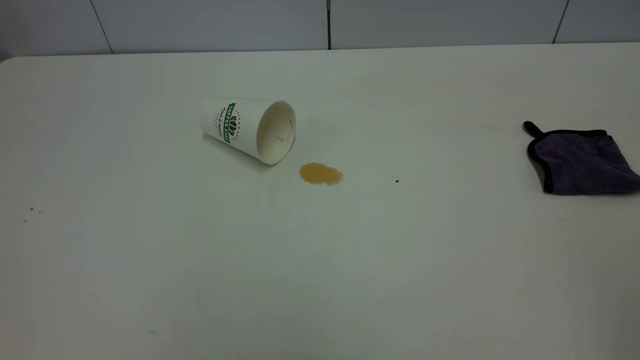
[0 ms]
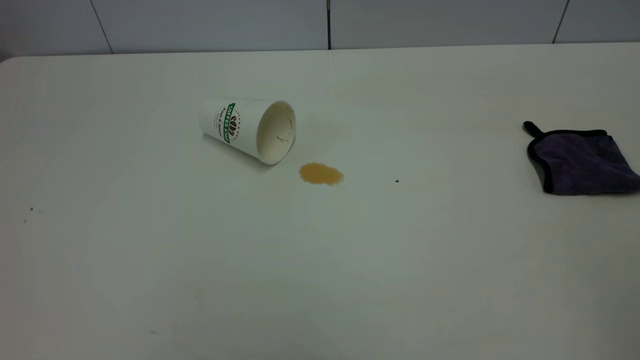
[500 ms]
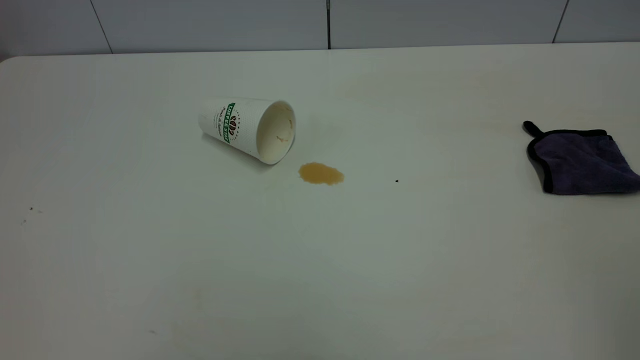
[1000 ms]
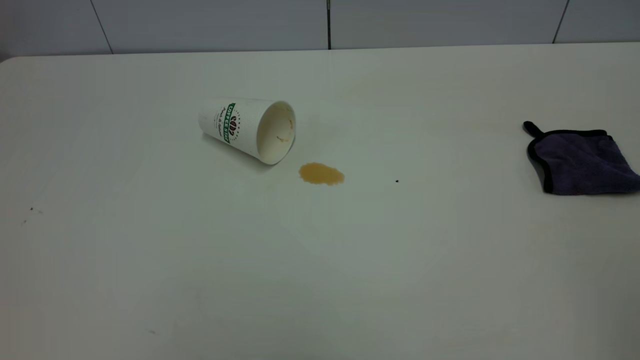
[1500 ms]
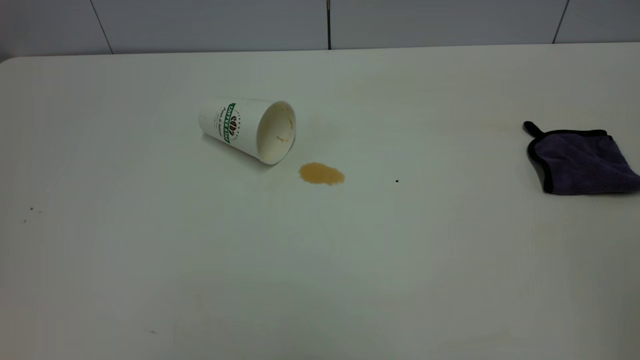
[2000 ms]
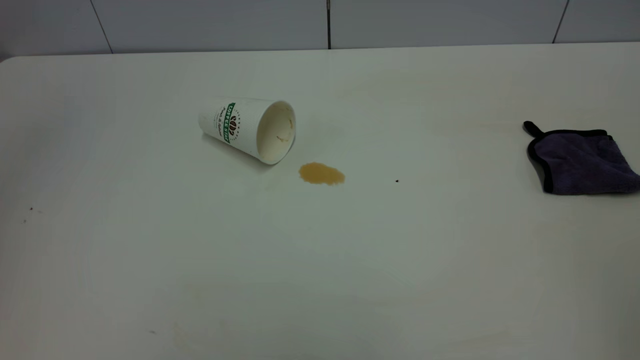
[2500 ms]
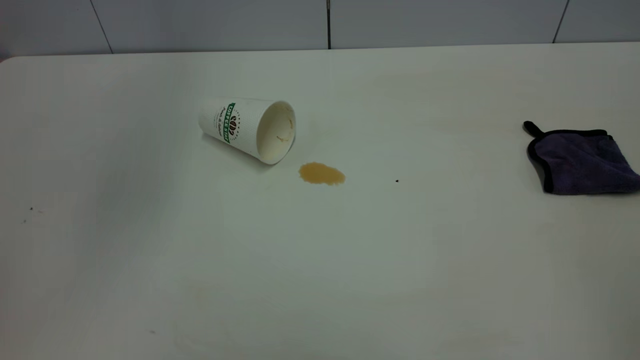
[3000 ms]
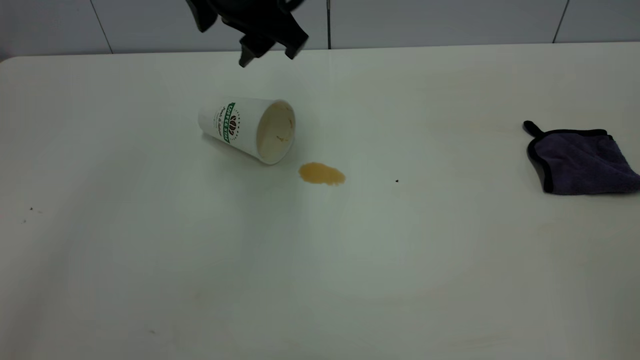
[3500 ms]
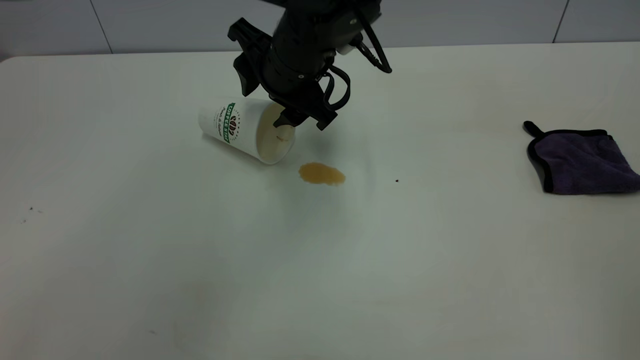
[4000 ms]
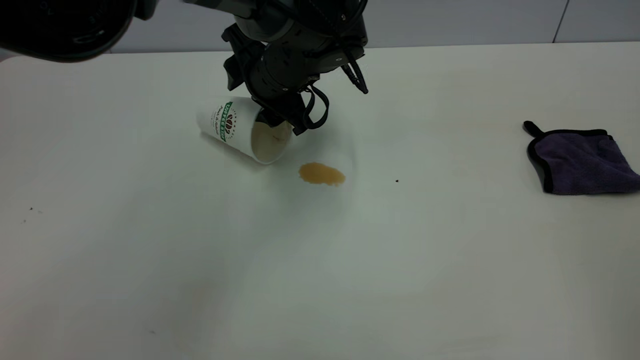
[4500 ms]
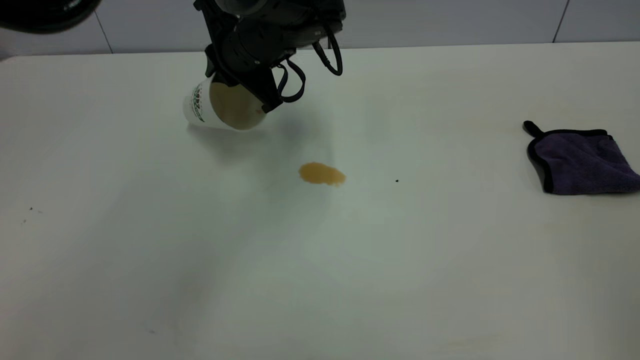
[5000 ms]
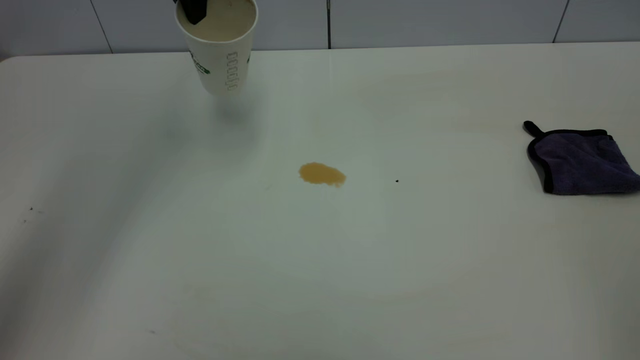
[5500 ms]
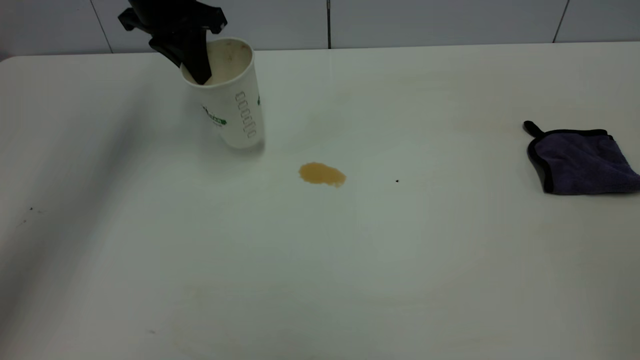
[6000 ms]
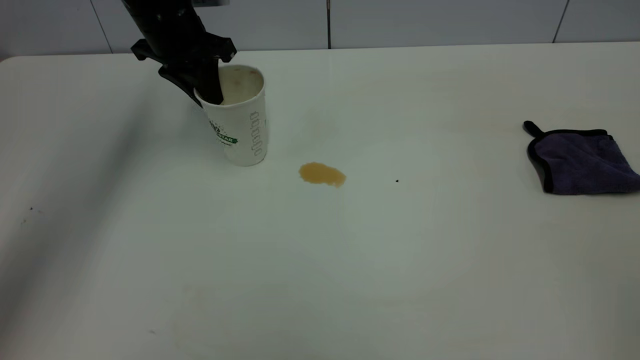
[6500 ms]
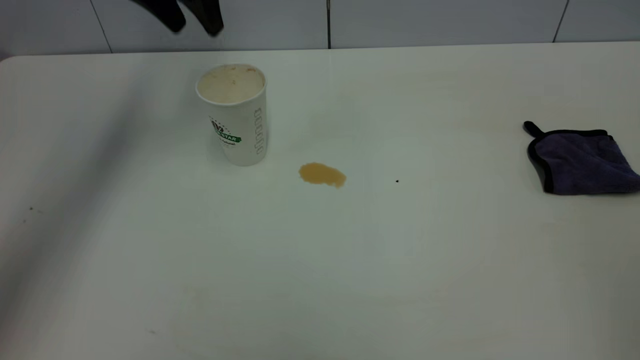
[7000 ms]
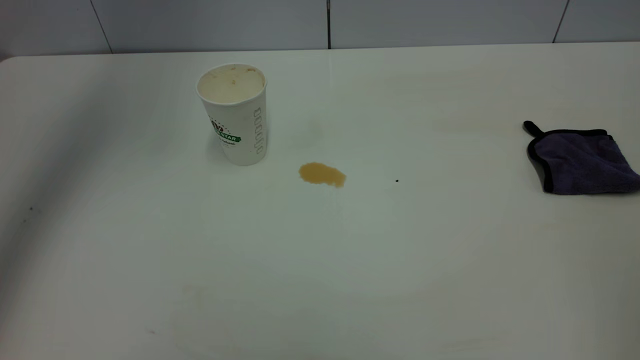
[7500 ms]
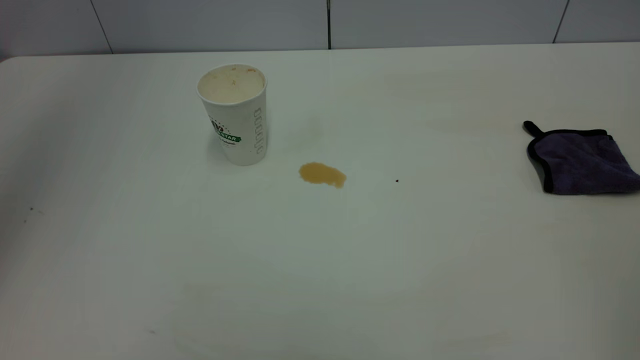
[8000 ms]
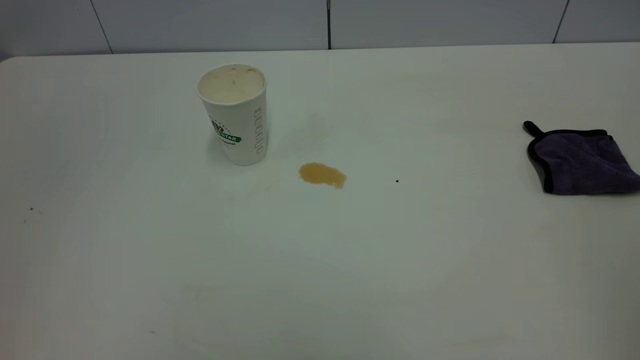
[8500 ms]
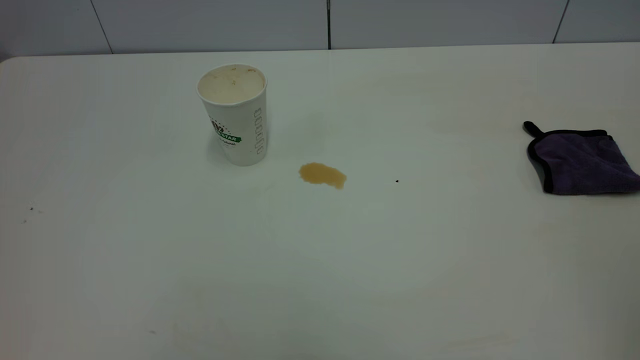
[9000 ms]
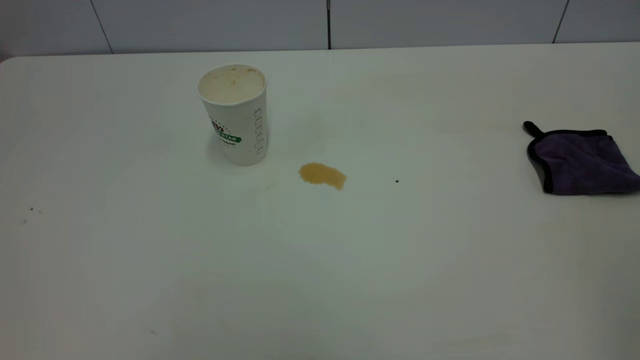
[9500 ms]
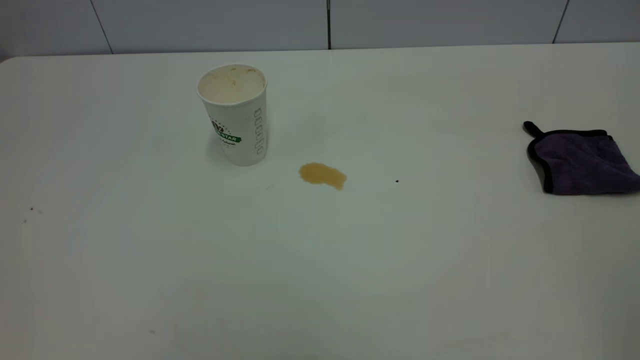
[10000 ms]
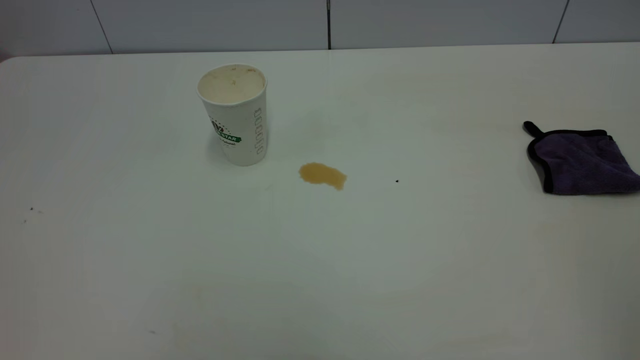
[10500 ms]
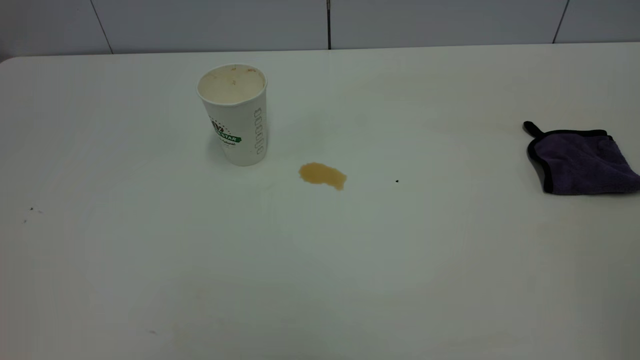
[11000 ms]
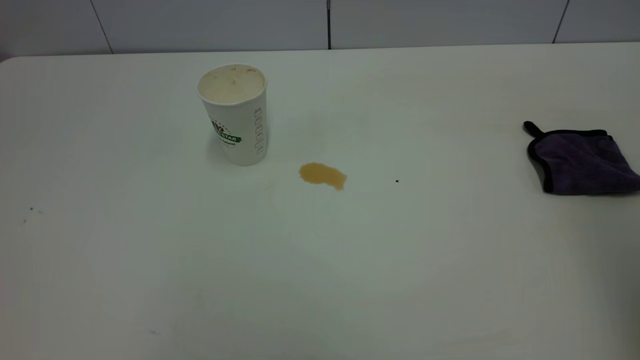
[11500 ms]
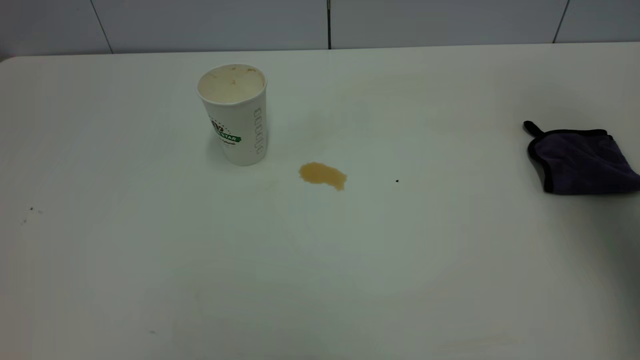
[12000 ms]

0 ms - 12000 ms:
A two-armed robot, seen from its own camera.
Task of the whole recording: the left gripper pick up the fallen cup and place it upright, the right gripper grasp the purple rag and wipe the tea stain on the table, the right gripper put the purple rag back in its original position.
Step, 0 ms - 6500 ms: Stand the paper cup upright.
2000 ms - 4000 ms: The left gripper goes roughly 60 cm forward, to the right and downward, and opens up.
4000 ms - 6000 ms: The left gripper heads to the left and forward, covering approximately 20 cm, and closes its fingers.
6000 ms - 8000 ms: The left gripper is displaced upward and backward by roughly 35 cm, and opens.
8000 ms - 10000 ms: The left gripper heads backward and downward, covering about 35 cm.
10000 ms - 12000 ms: The right gripper heads forward, covering about 35 cm, and opens up.

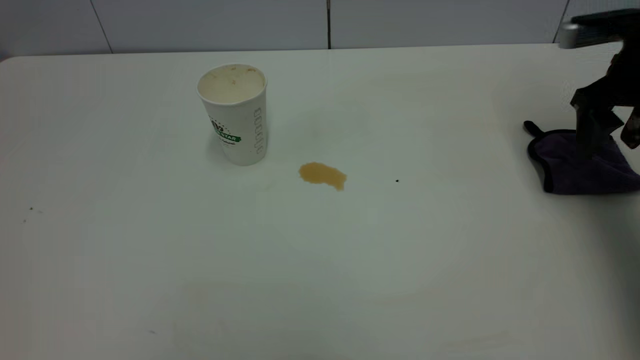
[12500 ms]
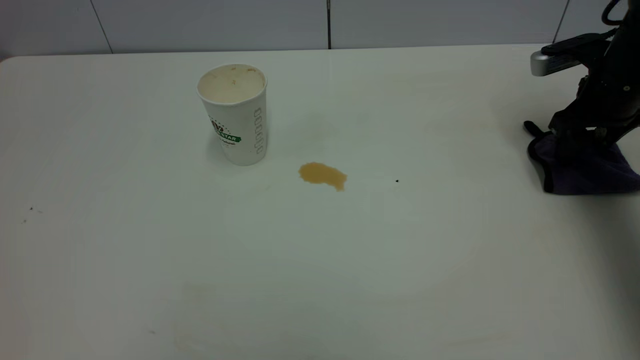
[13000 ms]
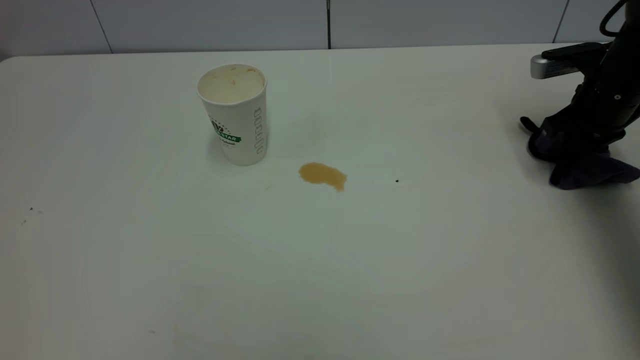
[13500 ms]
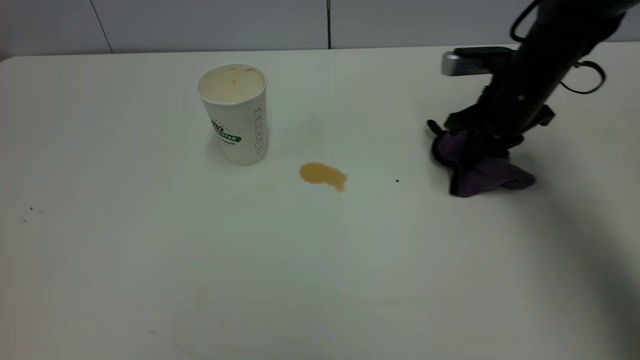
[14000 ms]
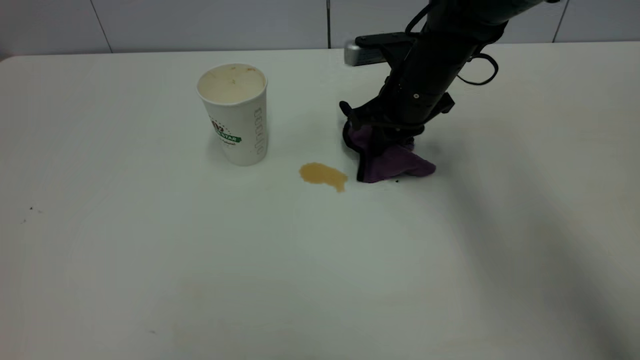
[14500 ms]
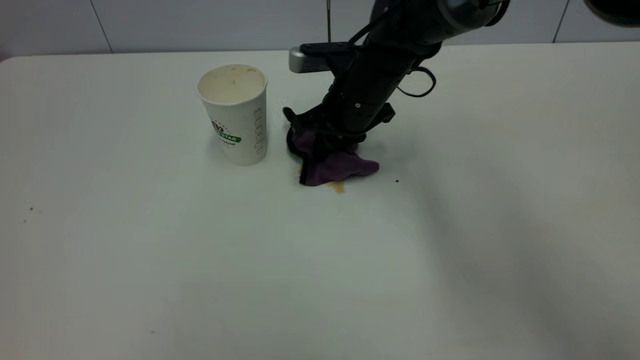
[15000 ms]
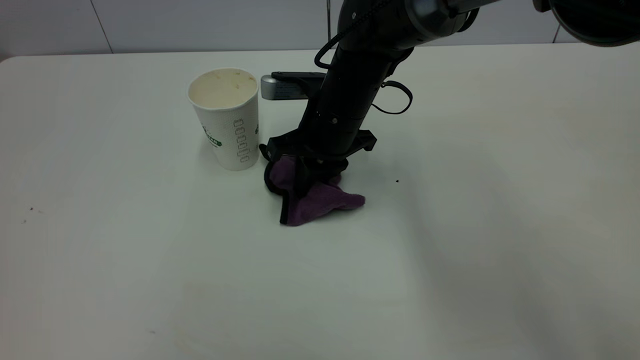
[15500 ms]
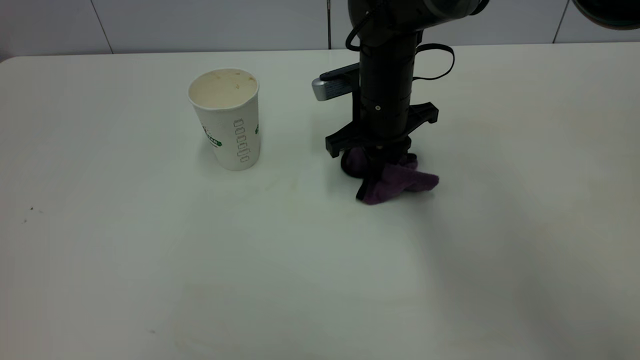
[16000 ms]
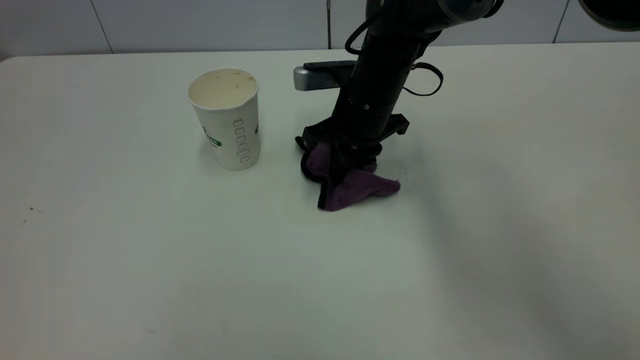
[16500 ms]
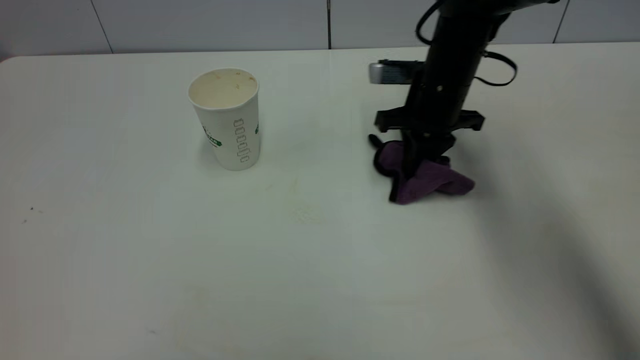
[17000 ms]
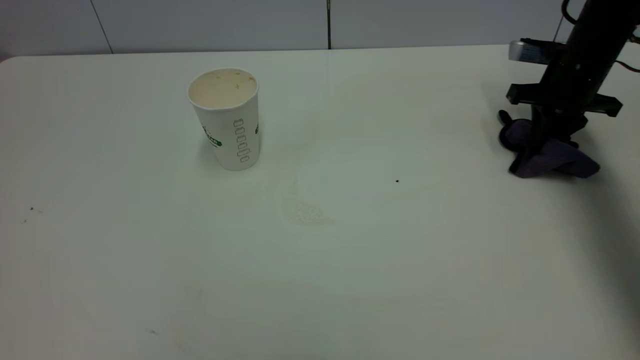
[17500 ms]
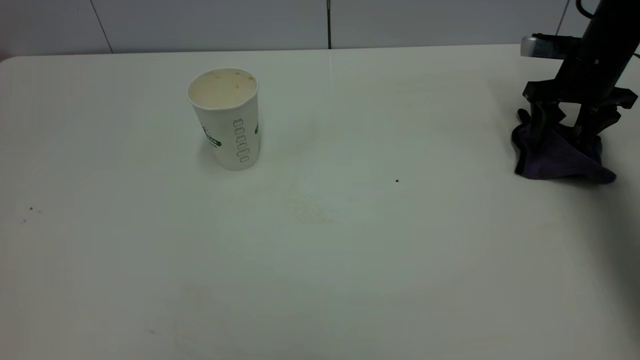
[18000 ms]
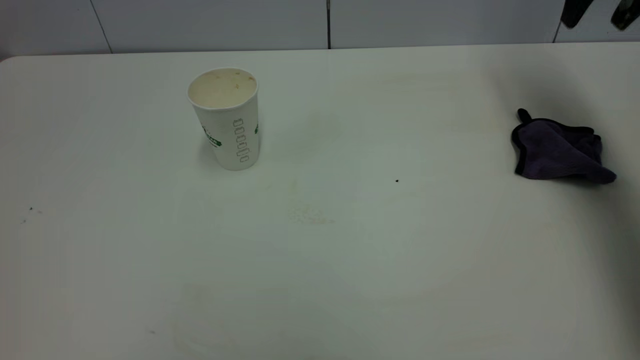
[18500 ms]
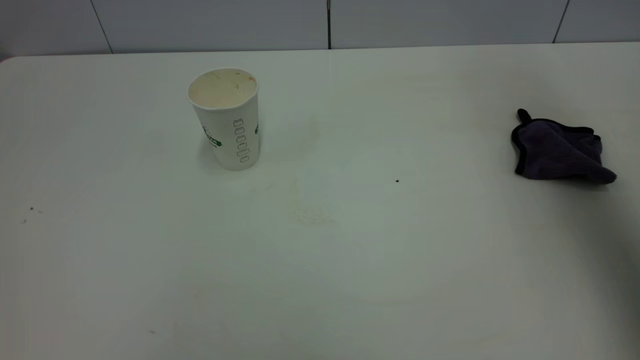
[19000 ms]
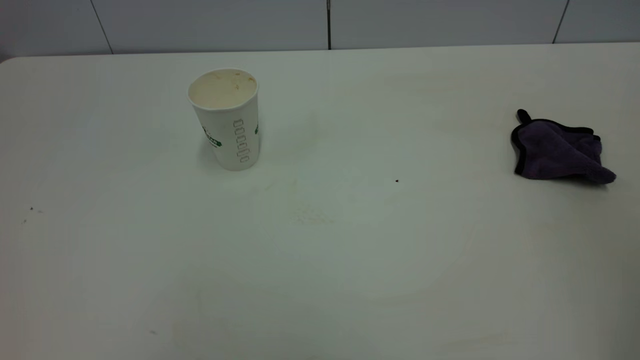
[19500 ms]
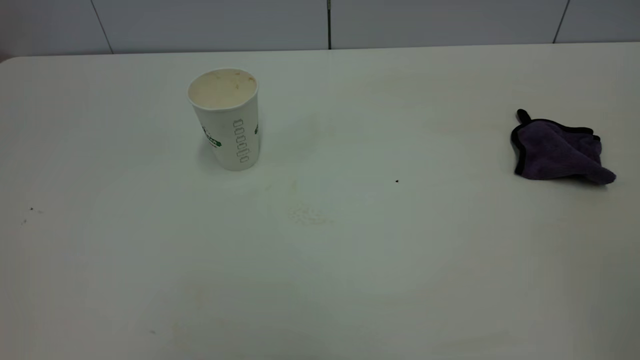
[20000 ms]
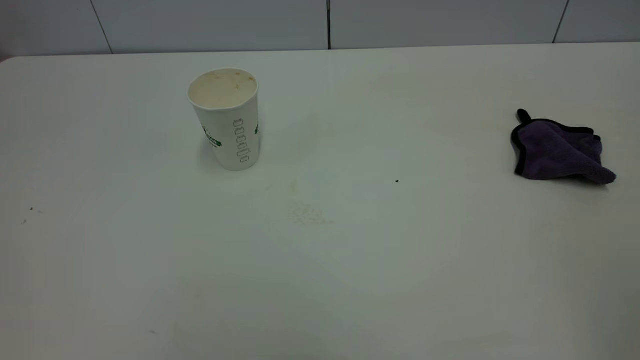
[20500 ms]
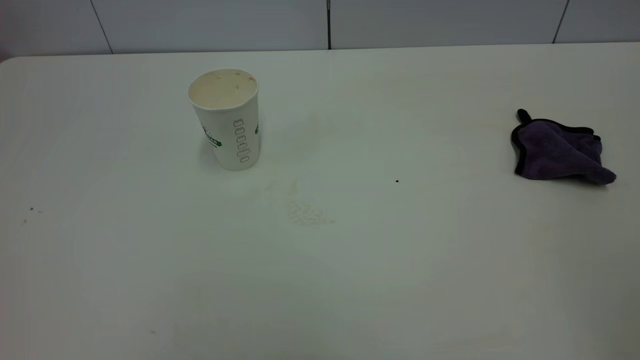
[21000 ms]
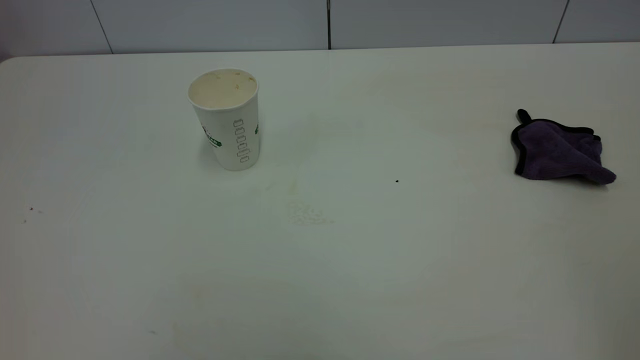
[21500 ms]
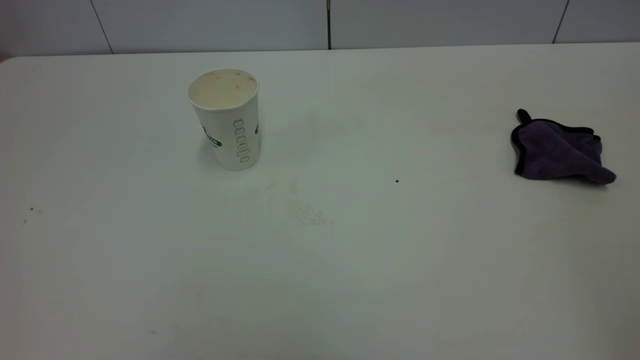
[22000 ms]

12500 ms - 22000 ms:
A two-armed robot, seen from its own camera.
Task of the whole recording: the left gripper pick up the fallen cup and place it upright, the right gripper grasp the purple rag and wipe the tea stain on the table, the right gripper put the purple rag back in its original position.
Step, 12500 ms - 18000 ms: Wipe the stains off the table with a rag.
12500 ms - 14500 ms: The right gripper moves to the left, approximately 20 cm, and closes up.
14500 ms - 16500 ms: The right gripper shifts roughly 5 cm to the left.
16500 ms - 18000 ms: The right gripper goes some 30 cm to the right, and opens its fingers.
18000 ms - 20000 ms: The right gripper travels backward and upward by approximately 60 cm.
